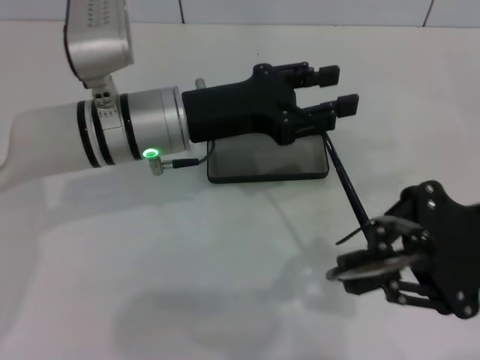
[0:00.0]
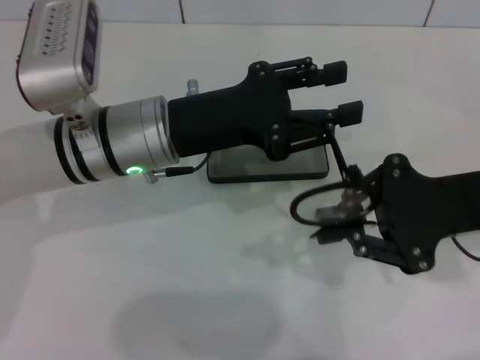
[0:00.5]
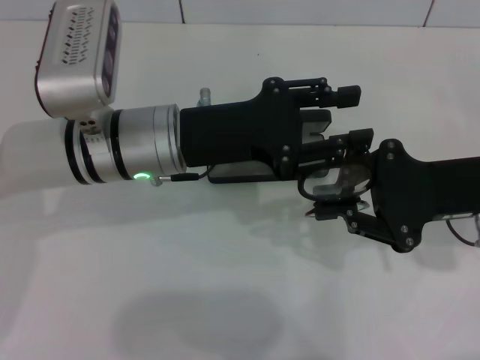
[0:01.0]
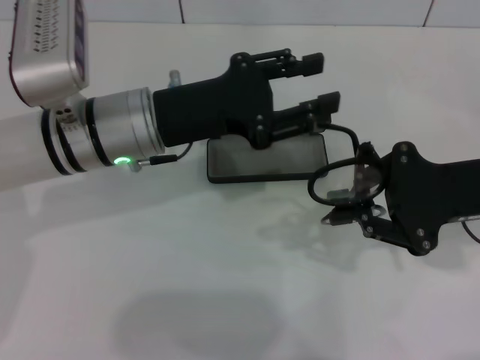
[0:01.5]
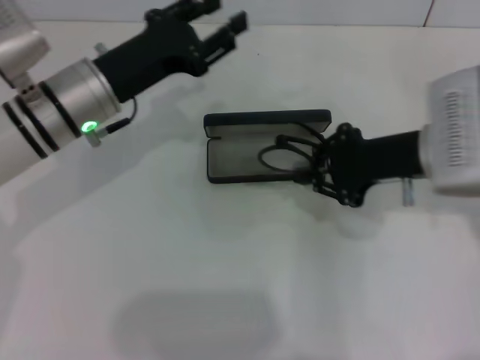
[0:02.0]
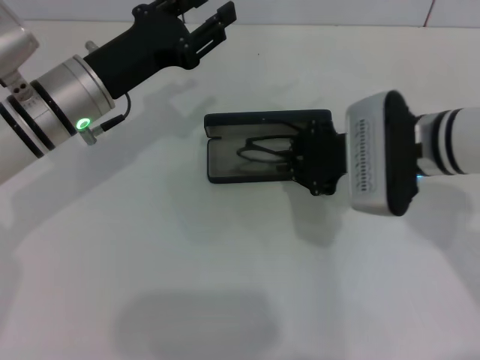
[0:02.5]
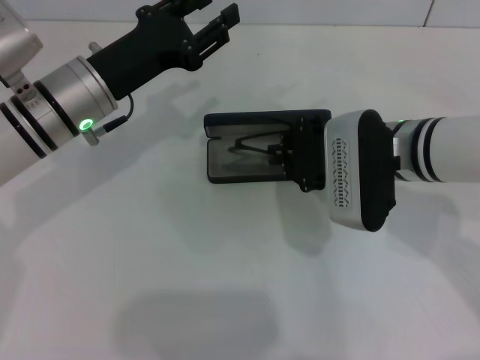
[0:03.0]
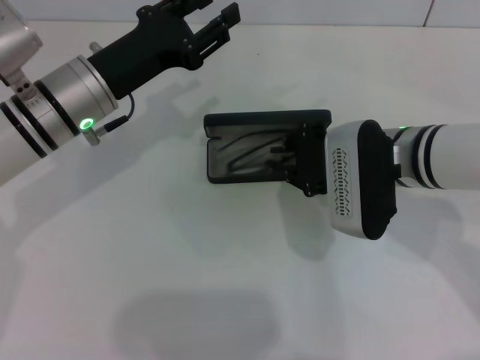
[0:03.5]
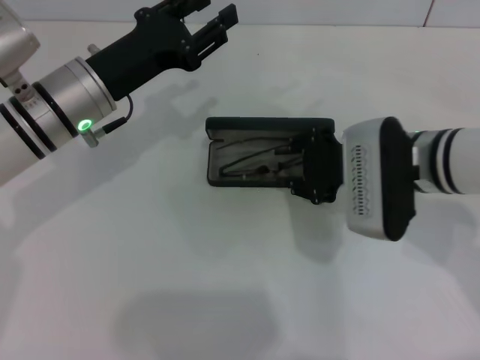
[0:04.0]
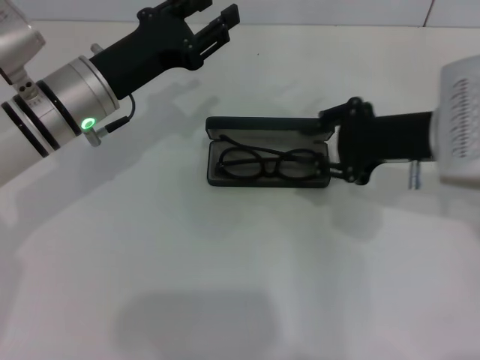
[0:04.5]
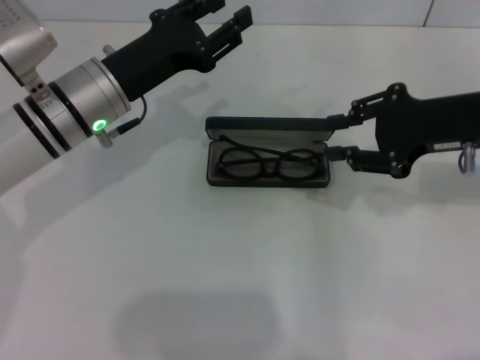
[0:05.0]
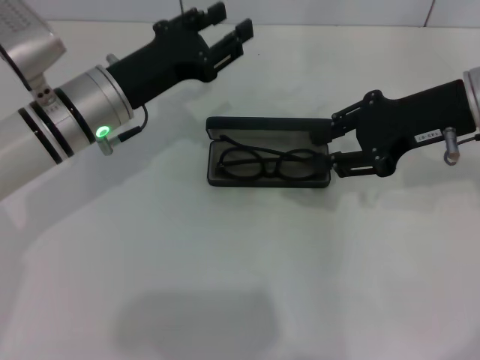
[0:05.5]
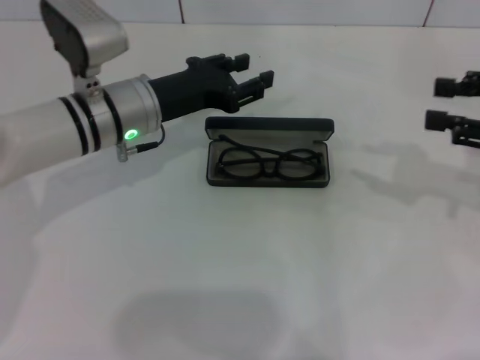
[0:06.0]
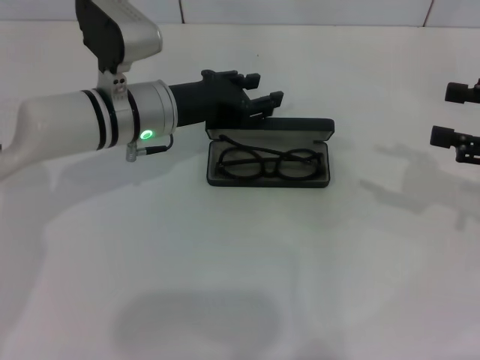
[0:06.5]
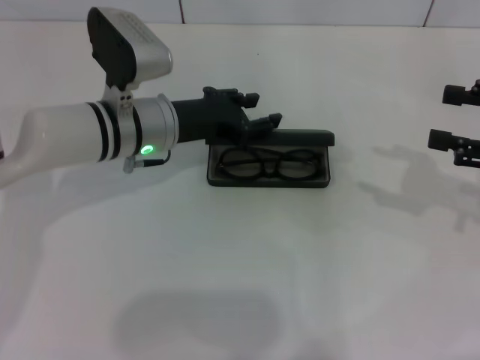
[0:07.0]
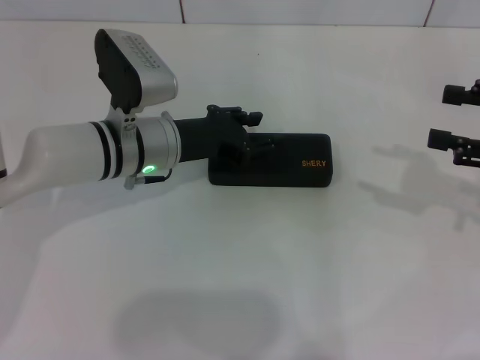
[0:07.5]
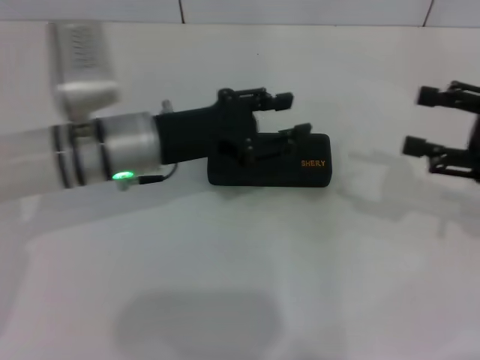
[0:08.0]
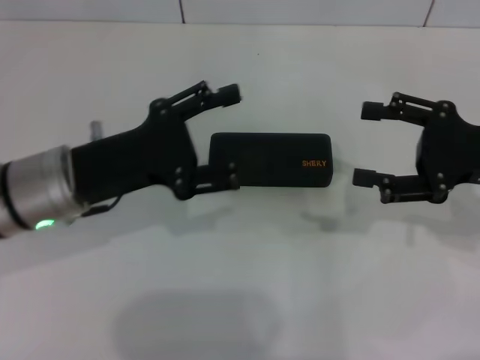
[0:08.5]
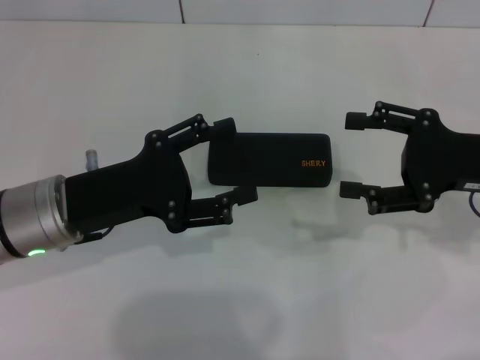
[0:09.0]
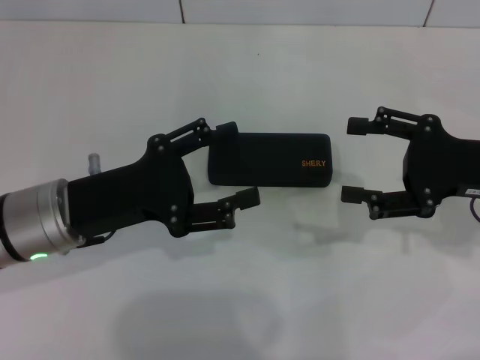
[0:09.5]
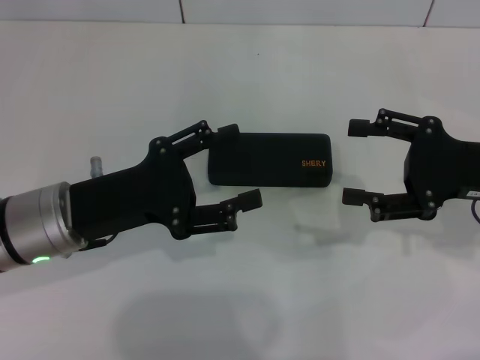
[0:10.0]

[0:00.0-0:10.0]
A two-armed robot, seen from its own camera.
Step, 0:01.0 to 0:04.0: Fold the frame with your left hand.
Step, 0:04.5 to 0:07.0: Put the glasses into the case with your right hand.
0:00.0 to 0:02.0: The left gripper goes about 5 cm to the left. Meanwhile the right gripper travels forward by approximately 10 cm.
0:02.0 to 0:04.0: The right gripper moves roughly 5 cm.
0:04.0 to 0:06.0: The right gripper is displaced to the right by about 20 cm.
0:06.0 to 0:08.0: The right gripper opens.
0:08.0 to 0:10.0: The left gripper travels backward and to the left by about 10 cm, and opens its fingers, while the right gripper changes place by roughly 5 cm.
